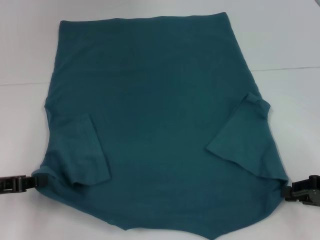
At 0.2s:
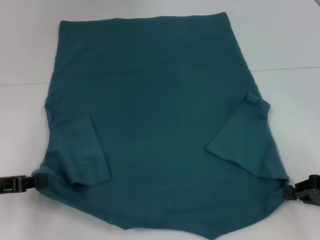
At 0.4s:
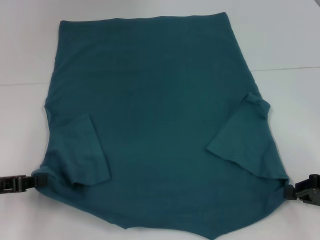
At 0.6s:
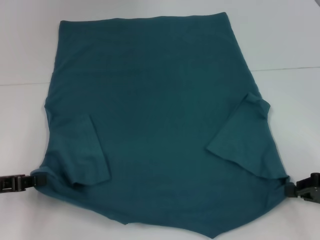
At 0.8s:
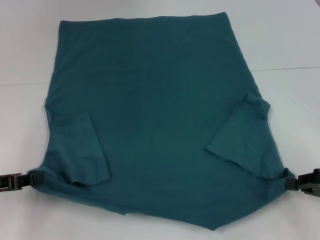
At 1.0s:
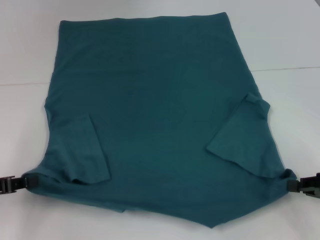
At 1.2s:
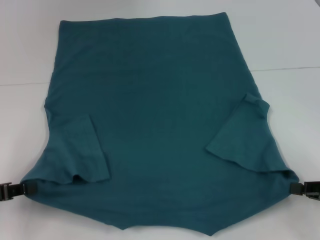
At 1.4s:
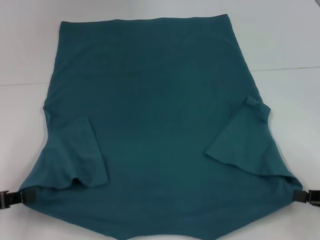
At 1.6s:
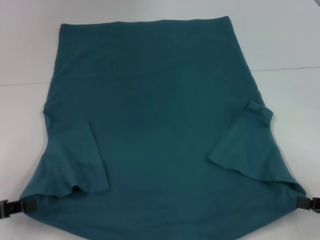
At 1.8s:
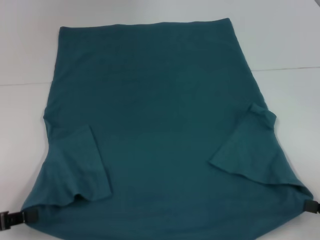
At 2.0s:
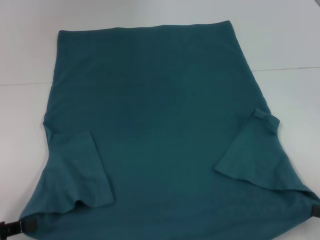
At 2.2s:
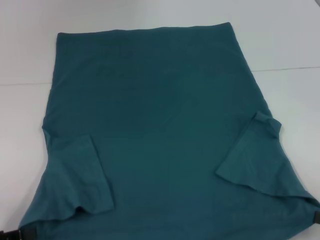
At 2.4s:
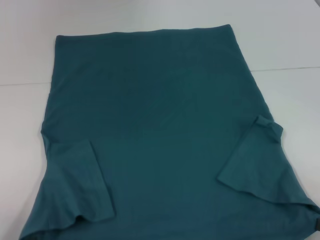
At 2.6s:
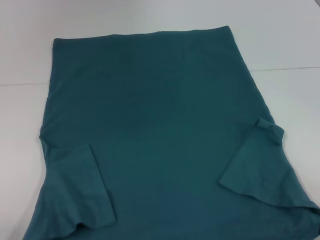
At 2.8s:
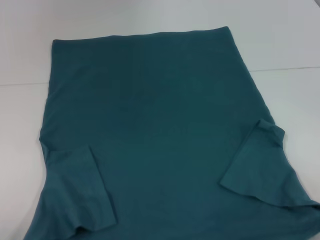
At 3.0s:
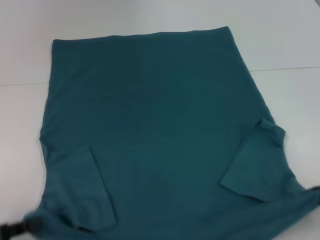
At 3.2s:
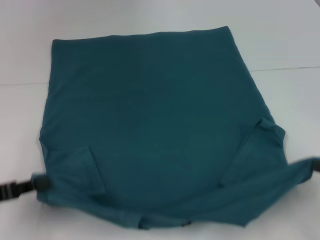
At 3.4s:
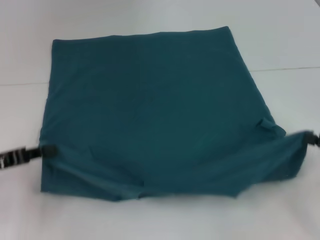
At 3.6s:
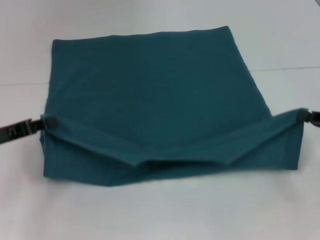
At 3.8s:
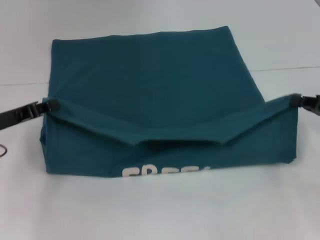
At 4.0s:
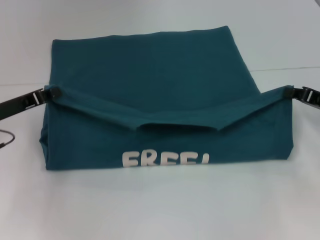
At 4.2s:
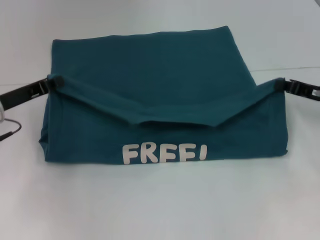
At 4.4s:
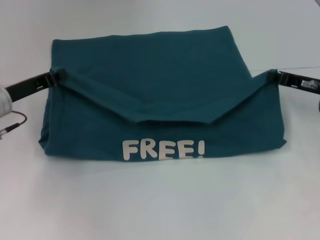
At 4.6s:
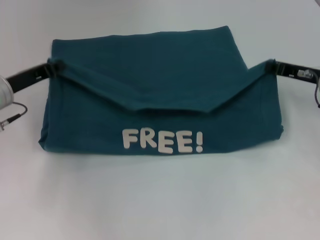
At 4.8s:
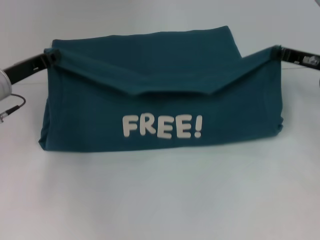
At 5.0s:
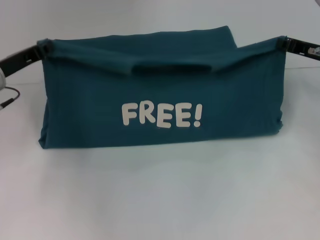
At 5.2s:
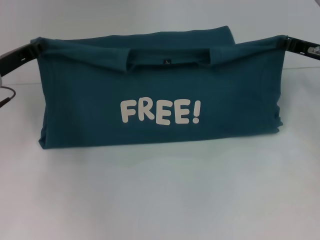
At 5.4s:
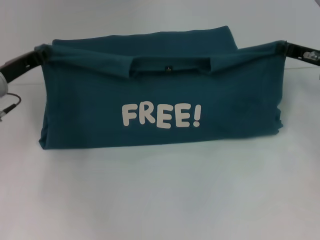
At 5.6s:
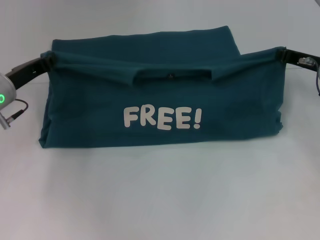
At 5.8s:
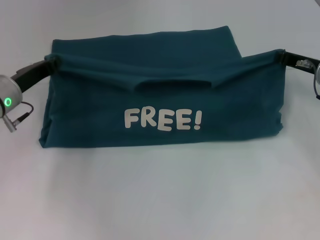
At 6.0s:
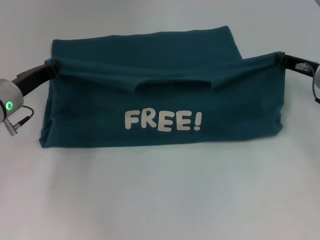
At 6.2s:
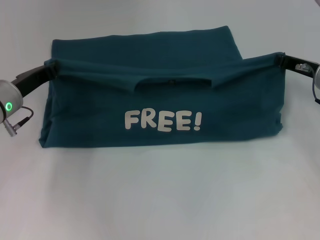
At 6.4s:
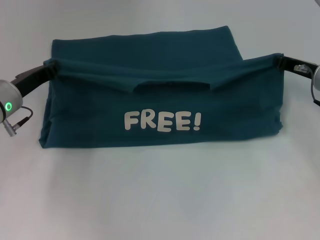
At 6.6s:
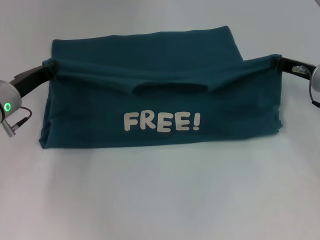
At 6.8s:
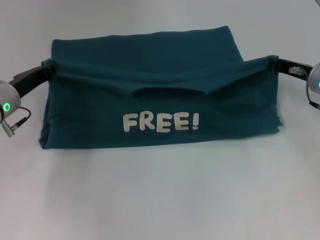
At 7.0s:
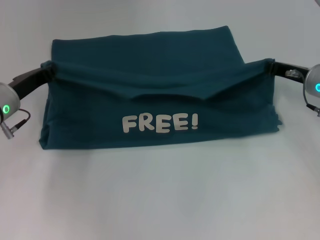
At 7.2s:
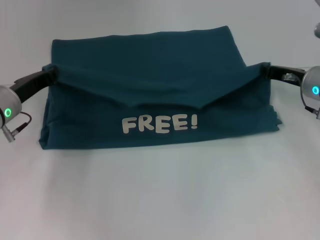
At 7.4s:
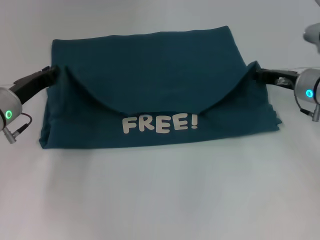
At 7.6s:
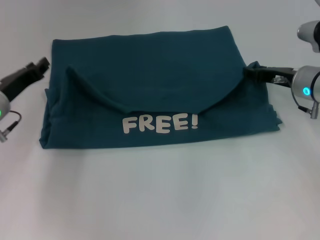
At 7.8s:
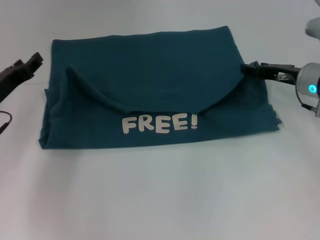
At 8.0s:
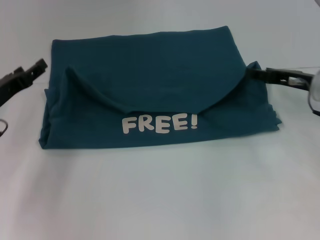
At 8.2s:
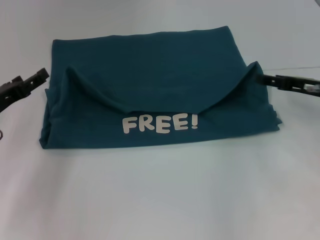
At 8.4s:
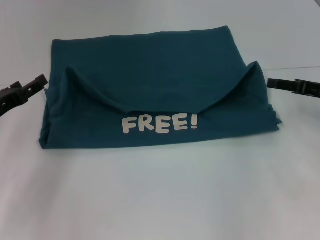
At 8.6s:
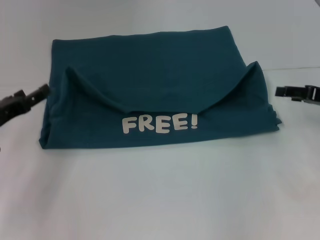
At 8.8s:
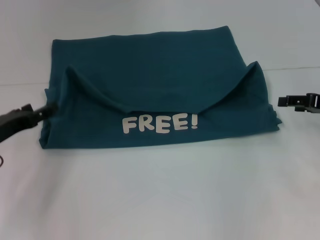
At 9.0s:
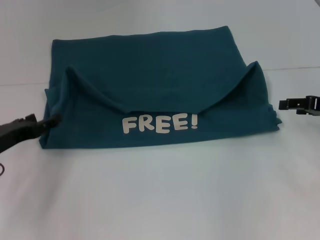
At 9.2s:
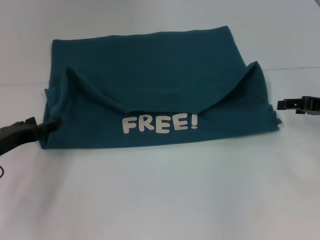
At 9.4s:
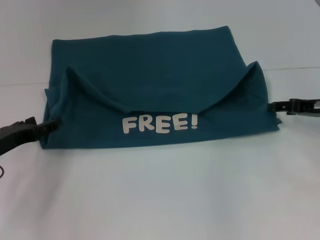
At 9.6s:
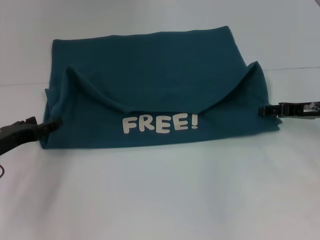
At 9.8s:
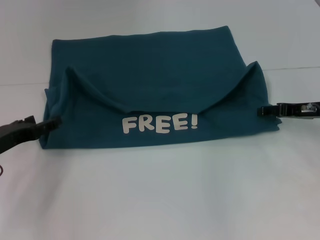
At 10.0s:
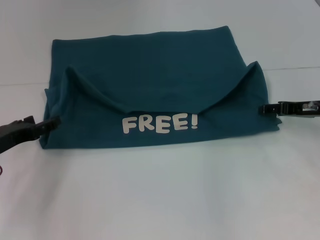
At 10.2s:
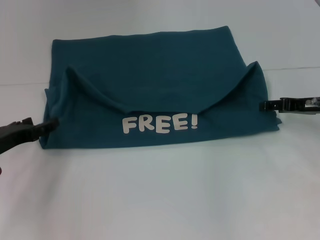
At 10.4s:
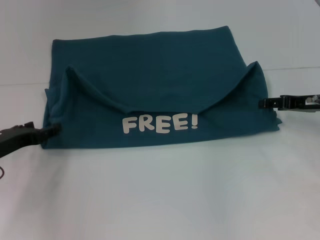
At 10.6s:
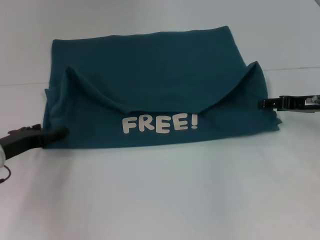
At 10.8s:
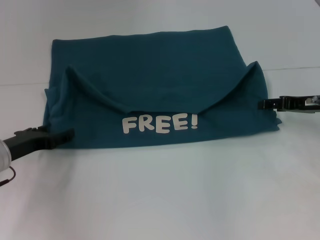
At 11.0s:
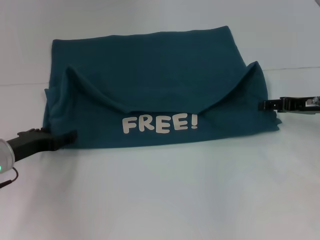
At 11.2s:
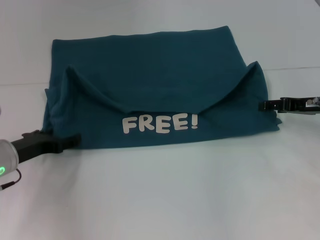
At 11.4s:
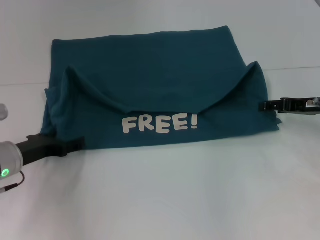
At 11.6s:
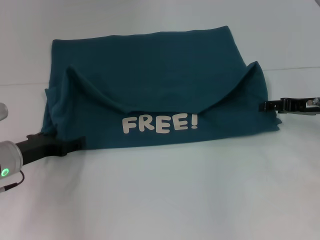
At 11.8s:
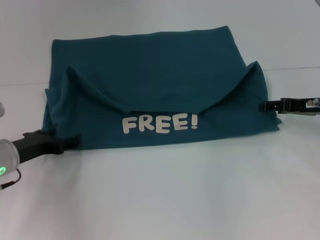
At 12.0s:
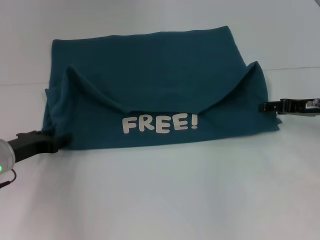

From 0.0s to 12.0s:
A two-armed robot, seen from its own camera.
Step, from 0.0s to 7.8s: Fold the clothes to the left.
Step, from 0.0s to 7.8s: Fold the clothes to the right.
From 0.0s to 1.6s: The right gripper is displaced backward by some 5 cm.
From 3.0s to 4.4s: Both grippers travel together forward, some 20 cm.
From 4.4s to 7.6s: The grippers stay close to where they were, moving slightly.
From 7.6s to 9.0s: The left gripper shifts roughly 5 cm backward, and opens; the right gripper travels to the right and backward by about 10 cm, and opens up.
From 9.0s to 12.0s: There are only small adjustments of the grippers.

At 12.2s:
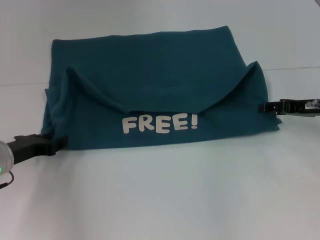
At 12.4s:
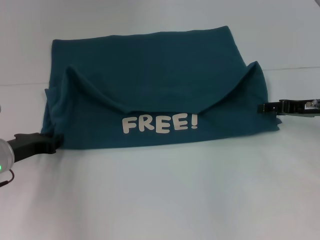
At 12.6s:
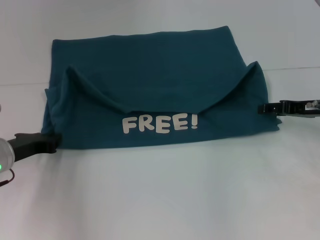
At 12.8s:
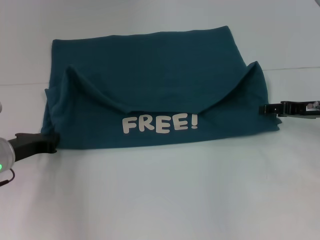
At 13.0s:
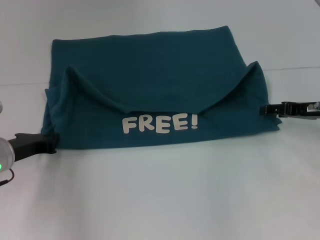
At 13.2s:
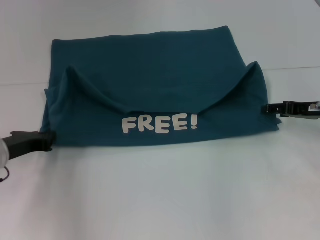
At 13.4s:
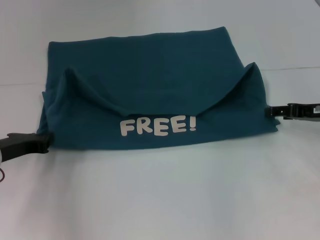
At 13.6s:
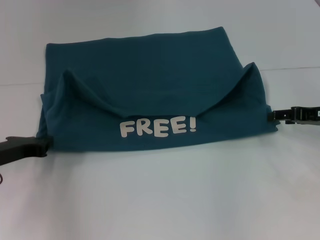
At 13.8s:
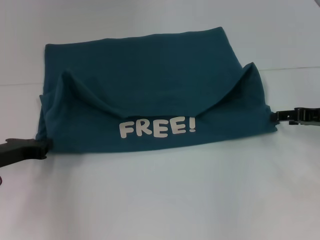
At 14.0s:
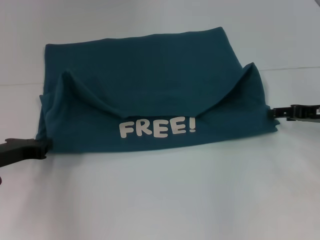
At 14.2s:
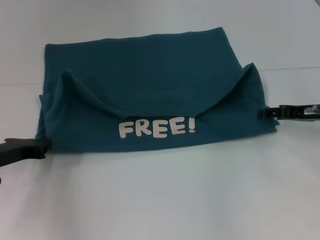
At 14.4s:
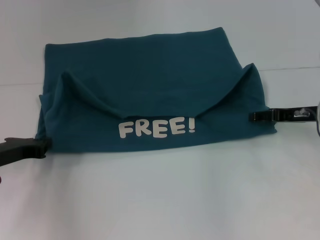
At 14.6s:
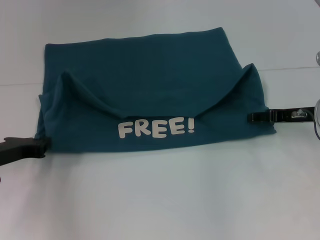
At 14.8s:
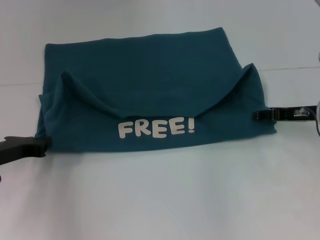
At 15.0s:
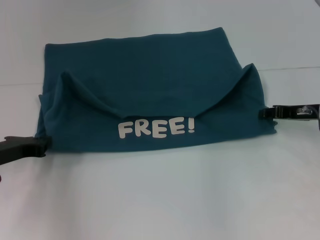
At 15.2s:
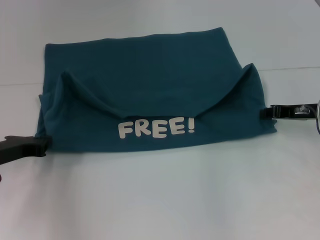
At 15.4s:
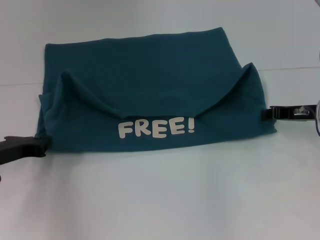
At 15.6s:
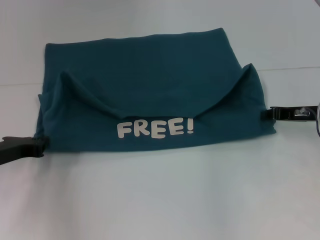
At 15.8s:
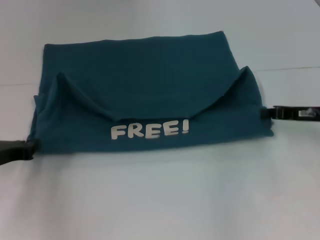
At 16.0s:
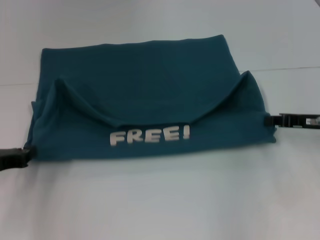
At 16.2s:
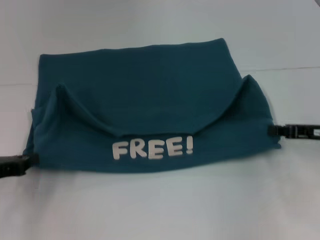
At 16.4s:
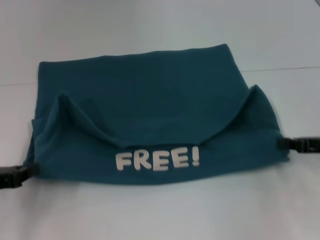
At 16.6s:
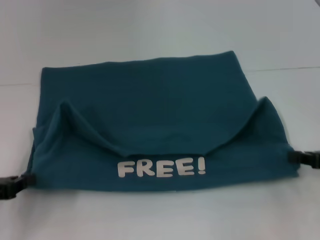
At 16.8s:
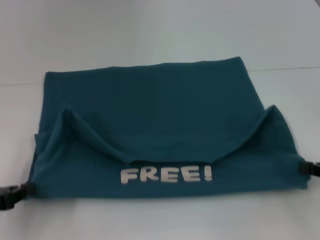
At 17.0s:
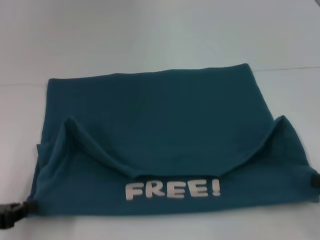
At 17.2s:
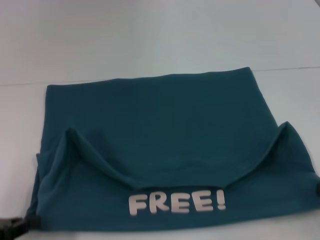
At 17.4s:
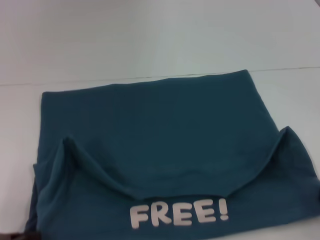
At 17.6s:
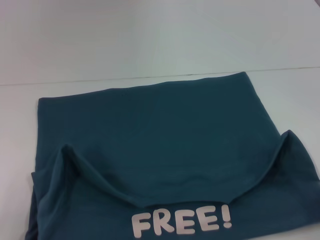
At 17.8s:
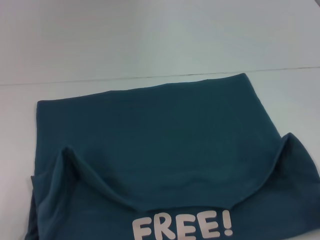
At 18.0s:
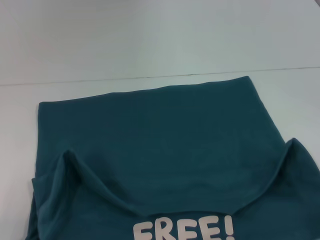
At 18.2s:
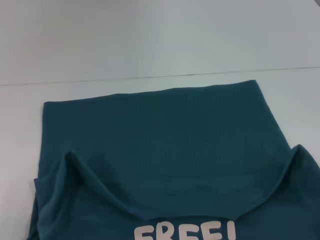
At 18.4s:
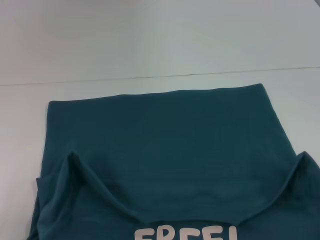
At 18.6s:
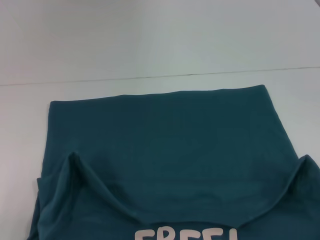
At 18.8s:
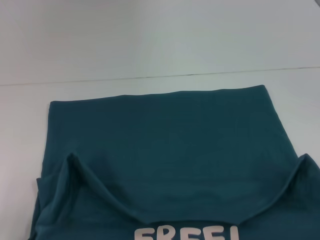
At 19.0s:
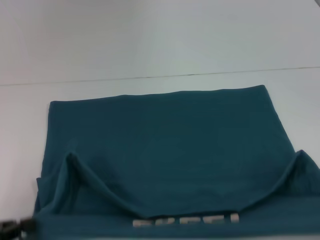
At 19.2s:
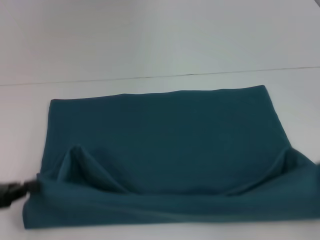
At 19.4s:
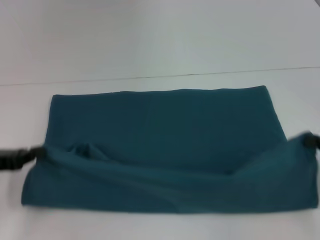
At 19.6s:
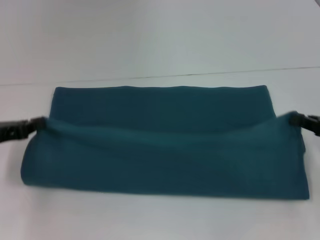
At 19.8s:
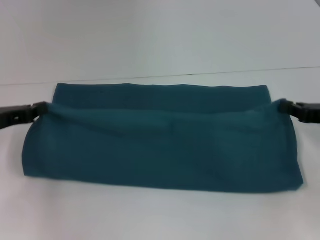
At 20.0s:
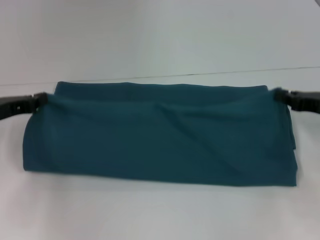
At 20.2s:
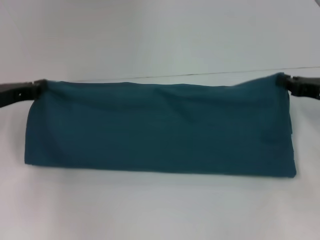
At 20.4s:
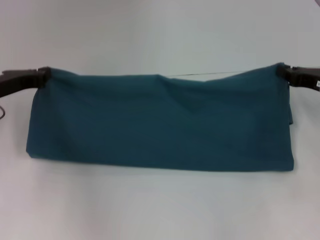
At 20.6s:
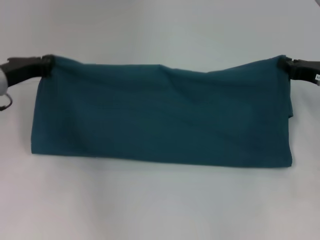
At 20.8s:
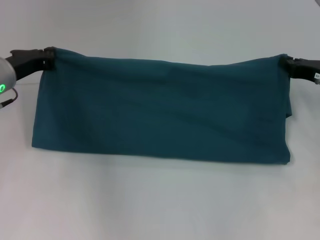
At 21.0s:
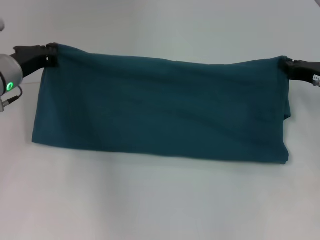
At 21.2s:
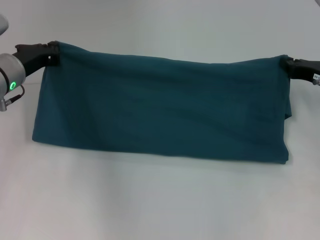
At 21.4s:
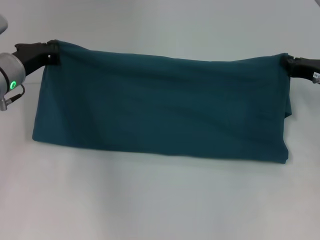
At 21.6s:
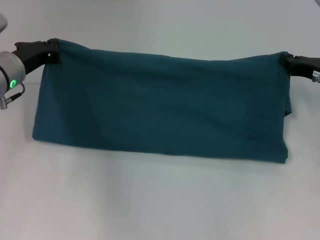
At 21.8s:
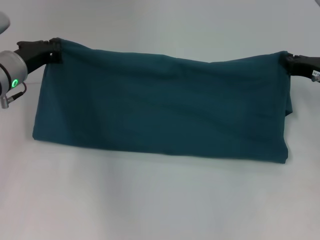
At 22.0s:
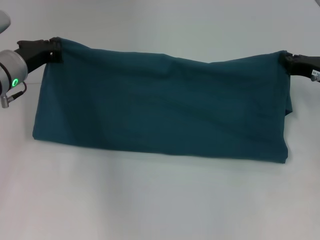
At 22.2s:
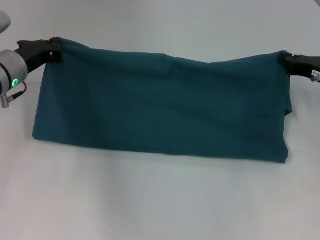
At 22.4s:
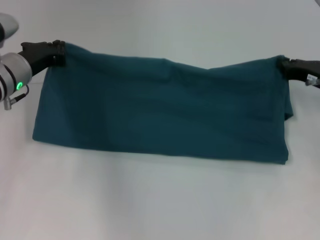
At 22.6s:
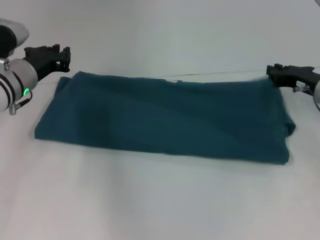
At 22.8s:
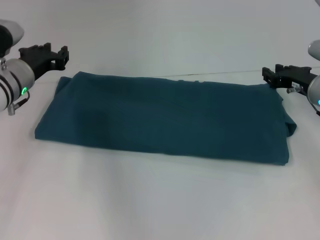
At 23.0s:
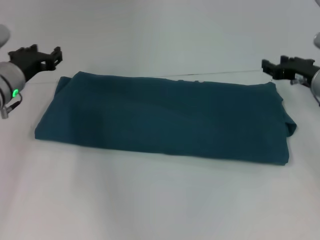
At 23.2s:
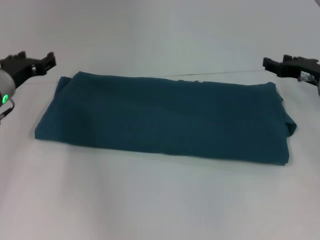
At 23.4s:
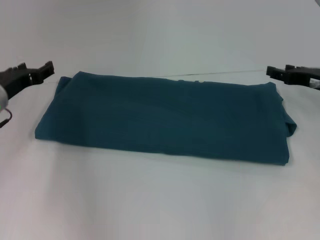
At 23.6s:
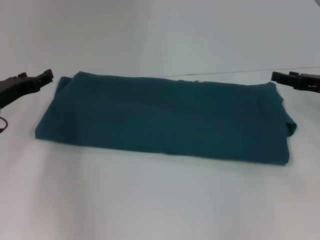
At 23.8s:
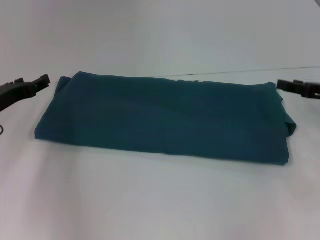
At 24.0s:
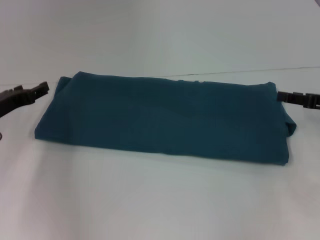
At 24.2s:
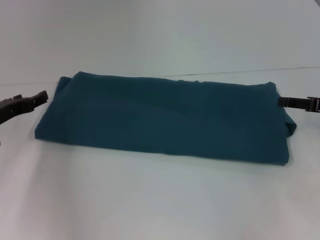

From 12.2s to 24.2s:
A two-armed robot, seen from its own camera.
Step, from 12.2s to 18.6s: Pull the clothes with your left hand.
Step, from 12.2s to 18.6s: Pull the clothes with your right hand.
Step, from 18.8s to 22.8s: Fold the clothes to the left.
Step, from 18.8s to 22.8s: Fold the clothes to the right.
From 12.2s to 13.8s: The left gripper closes up.
From 13.8s to 15.2s: The right gripper closes up.
From 15.2s to 16.6s: The right gripper moves backward and to the right, approximately 10 cm. The left gripper is displaced backward by about 10 cm.
From 16.6s to 18.2s: The left gripper shifts approximately 10 cm backward; the right gripper goes roughly 15 cm backward.
From 18.2s to 19.8s: Both grippers move forward, about 20 cm.
From 19.8s to 21.2s: The right gripper moves forward, approximately 5 cm. Meanwhile the left gripper moves forward and to the right, some 10 cm.
From 21.2s to 22.6s: The grippers stay close to where they were, moving slightly.
From 22.6s to 24.2s: The right gripper goes some 10 cm to the right and backward, and opens up. The left gripper shifts some 10 cm to the left and backward, and opens.
